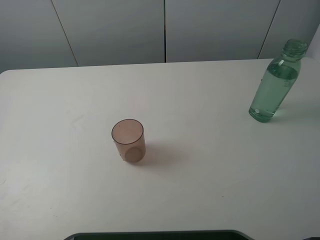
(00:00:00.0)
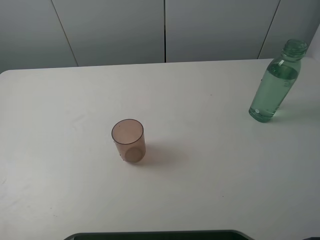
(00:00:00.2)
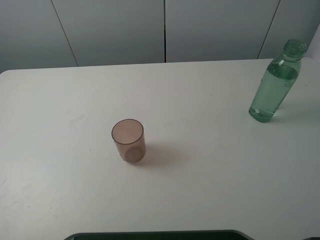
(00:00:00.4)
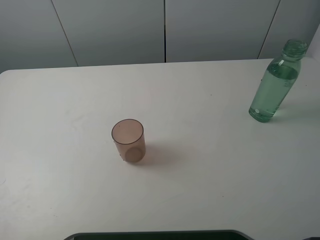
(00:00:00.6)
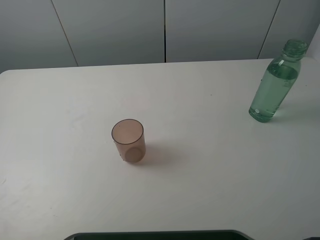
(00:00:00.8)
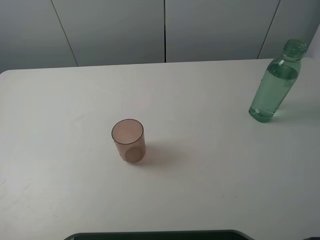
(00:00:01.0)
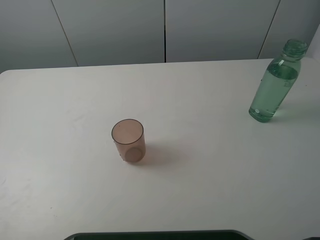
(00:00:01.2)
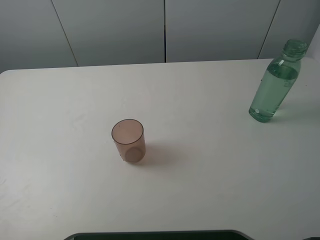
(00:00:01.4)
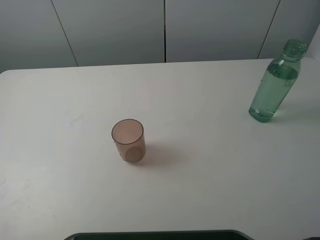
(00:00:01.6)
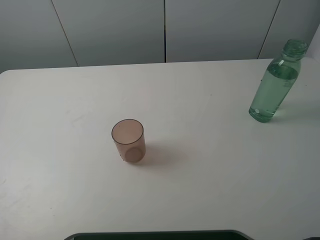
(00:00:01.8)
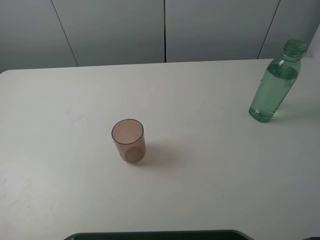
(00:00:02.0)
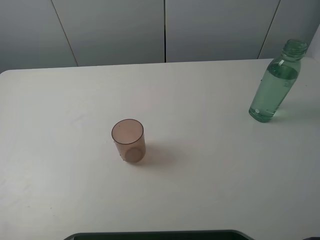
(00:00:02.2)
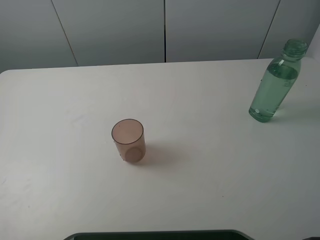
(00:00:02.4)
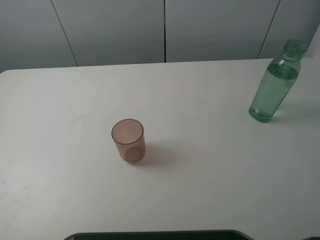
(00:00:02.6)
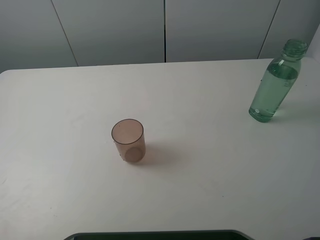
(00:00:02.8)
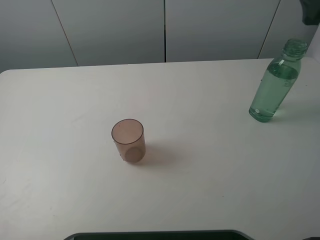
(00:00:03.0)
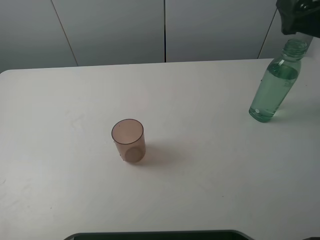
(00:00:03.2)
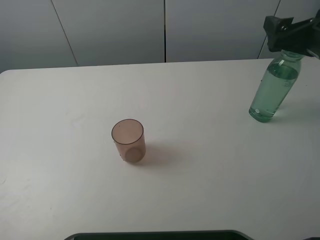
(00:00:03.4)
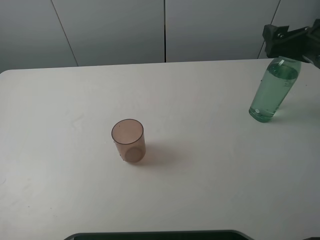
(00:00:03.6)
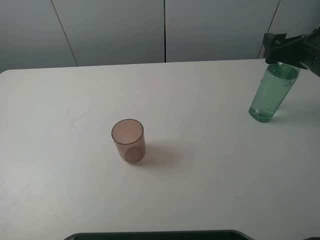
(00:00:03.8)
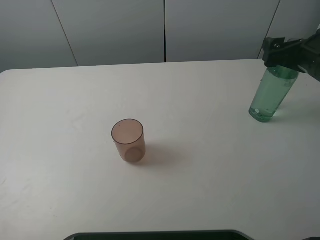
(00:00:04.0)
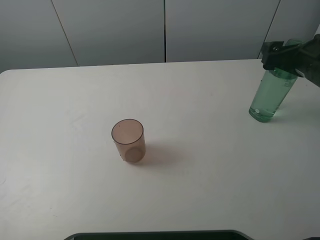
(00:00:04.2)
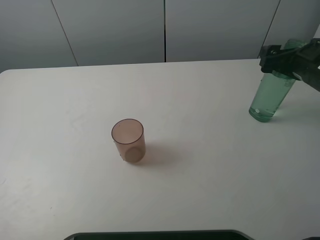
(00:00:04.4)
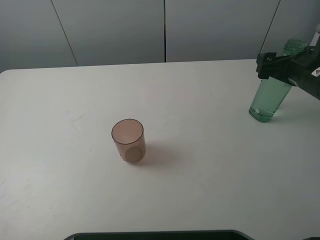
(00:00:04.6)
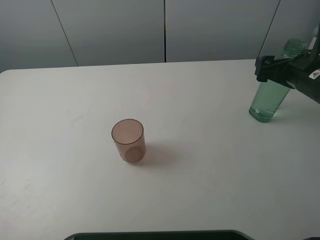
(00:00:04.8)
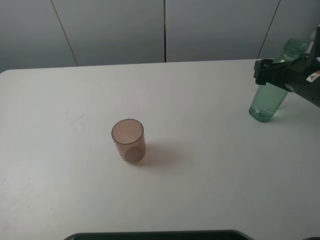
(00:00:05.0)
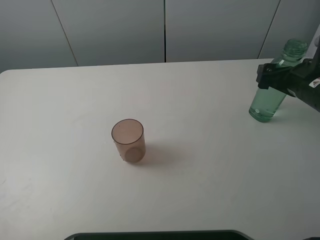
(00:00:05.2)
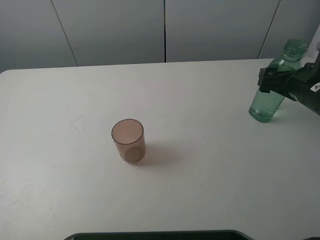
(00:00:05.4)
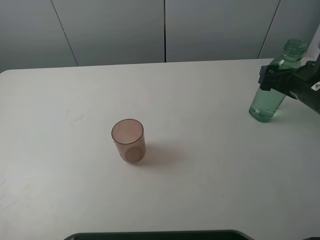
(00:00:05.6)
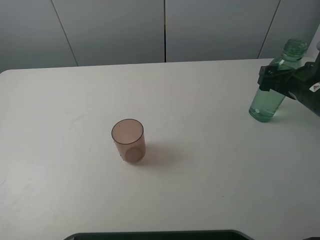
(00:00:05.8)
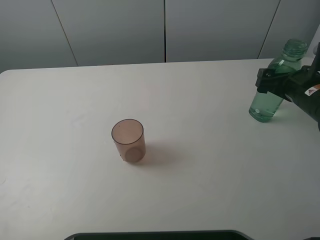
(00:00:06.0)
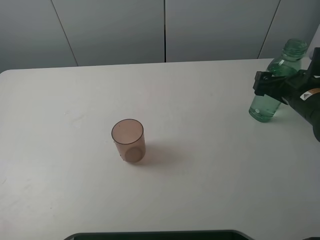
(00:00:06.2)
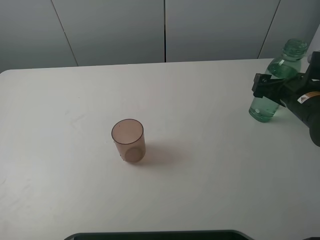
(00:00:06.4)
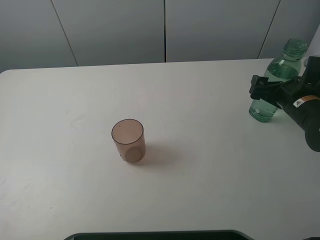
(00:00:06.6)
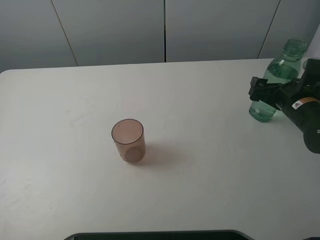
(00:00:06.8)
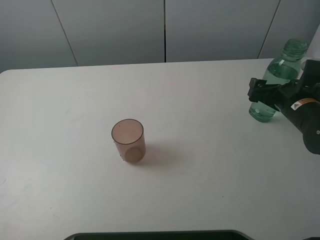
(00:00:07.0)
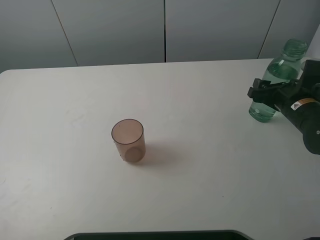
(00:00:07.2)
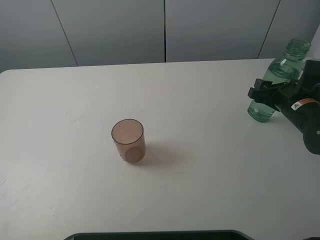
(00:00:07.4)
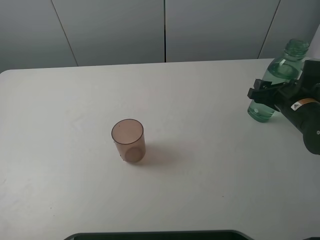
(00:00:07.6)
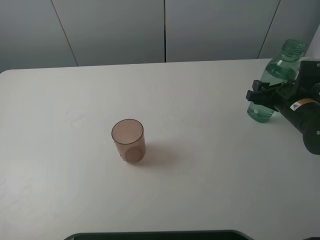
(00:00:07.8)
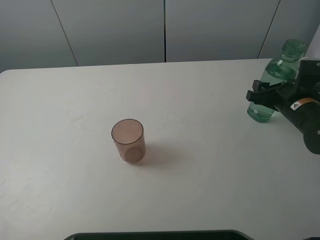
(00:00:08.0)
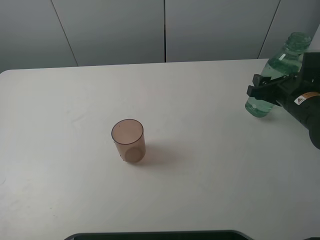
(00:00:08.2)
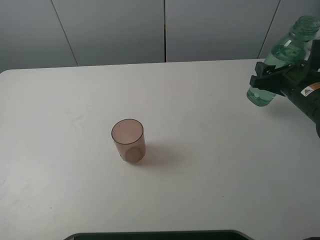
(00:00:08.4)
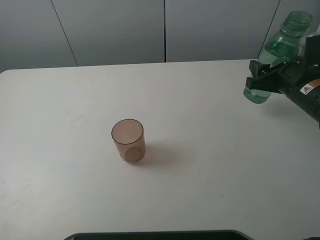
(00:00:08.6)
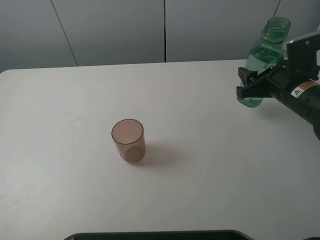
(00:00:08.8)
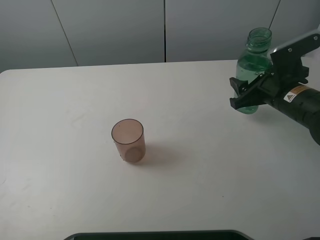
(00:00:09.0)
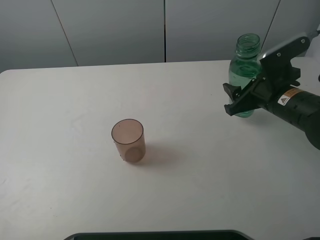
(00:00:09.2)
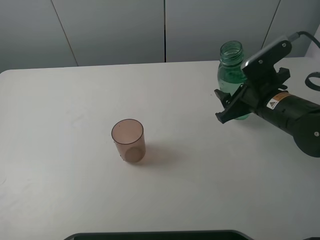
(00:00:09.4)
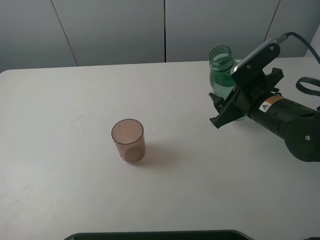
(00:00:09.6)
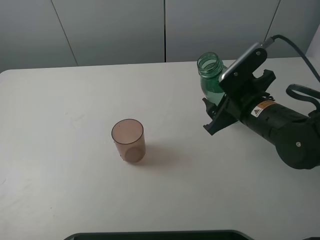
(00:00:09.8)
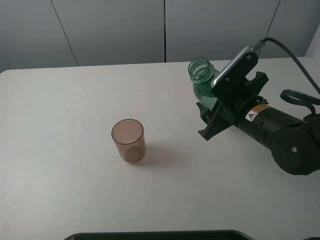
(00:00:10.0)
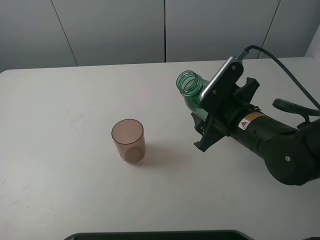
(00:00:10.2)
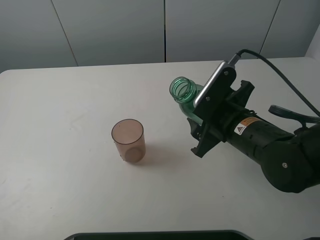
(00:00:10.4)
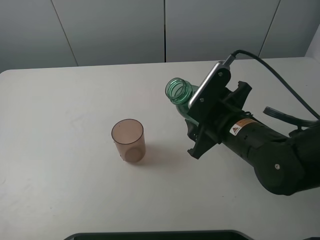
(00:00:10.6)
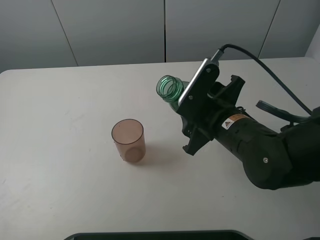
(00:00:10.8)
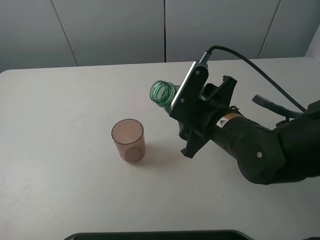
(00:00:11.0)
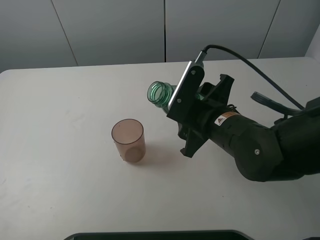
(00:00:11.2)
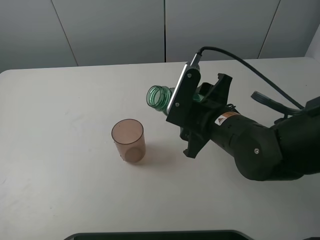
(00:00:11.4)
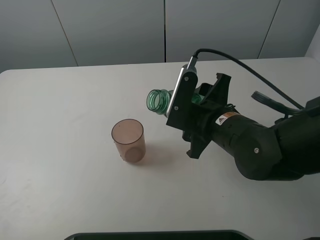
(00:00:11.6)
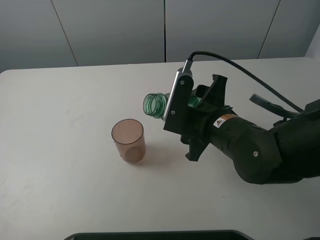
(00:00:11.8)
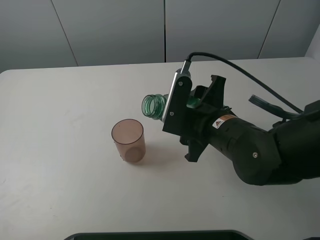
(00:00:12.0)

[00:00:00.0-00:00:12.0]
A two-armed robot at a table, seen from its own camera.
Task of the whole recording: pick up the bottle filled with water and pour it into the pink cup.
Step, 00:00:00.0 to 00:00:07.8: Grasp the green bottle with the right gripper.
00:00:00.0 to 00:00:01.6: Neither gripper changes place.
00:00:03.0 to 00:00:04.4: The right gripper shifts about 10 cm downward and forward.
00:00:04.4 to 00:00:06.0: The grippers make only small movements.
00:00:06.0 to 00:00:07.6: The right gripper closes up.
00:00:07.6 to 00:00:09.0: The right gripper moves some 5 cm.
00:00:09.0 to 00:00:10.4: The right gripper shifts roughly 10 cm to the left and backward.

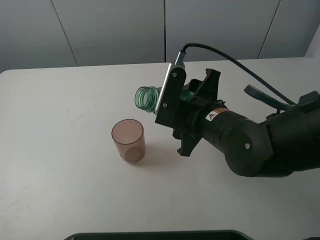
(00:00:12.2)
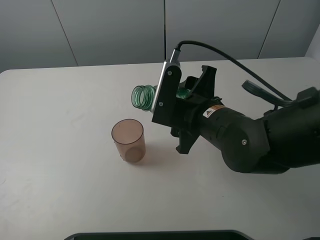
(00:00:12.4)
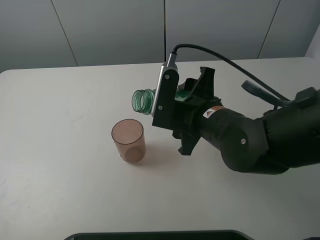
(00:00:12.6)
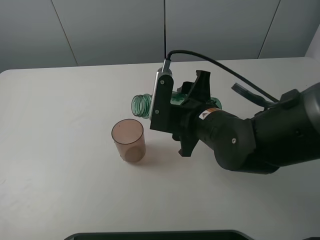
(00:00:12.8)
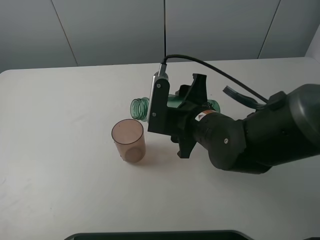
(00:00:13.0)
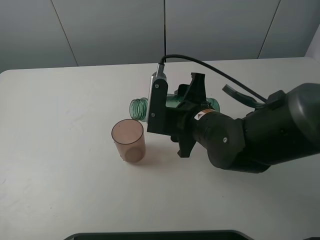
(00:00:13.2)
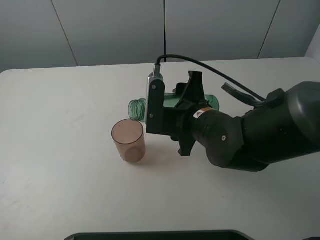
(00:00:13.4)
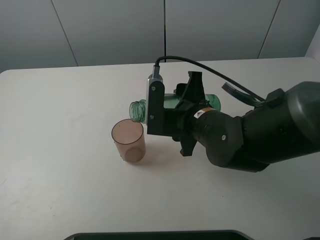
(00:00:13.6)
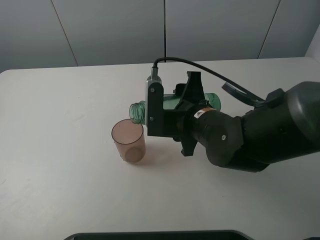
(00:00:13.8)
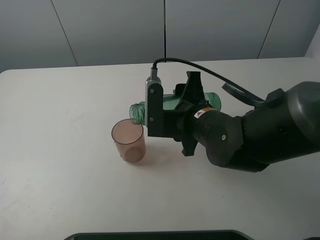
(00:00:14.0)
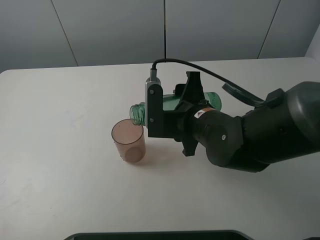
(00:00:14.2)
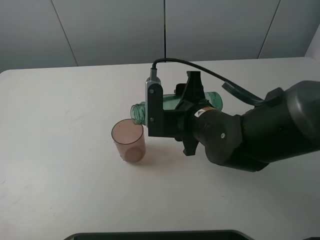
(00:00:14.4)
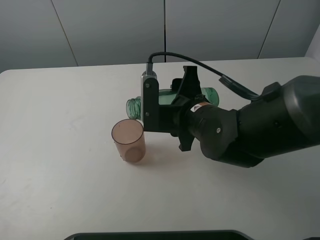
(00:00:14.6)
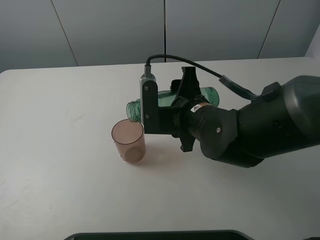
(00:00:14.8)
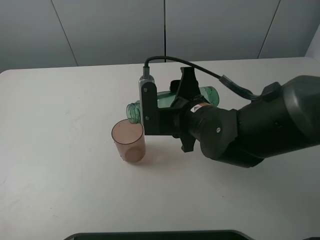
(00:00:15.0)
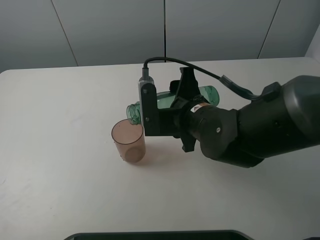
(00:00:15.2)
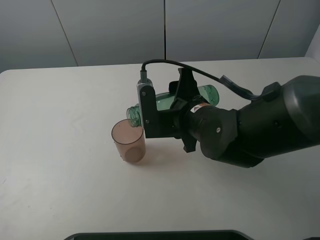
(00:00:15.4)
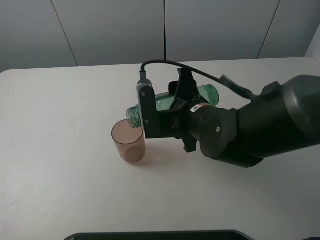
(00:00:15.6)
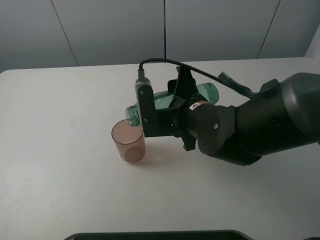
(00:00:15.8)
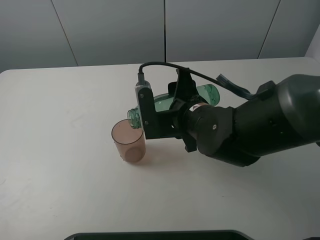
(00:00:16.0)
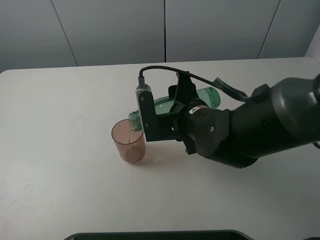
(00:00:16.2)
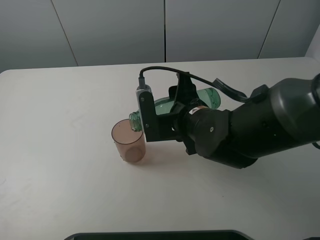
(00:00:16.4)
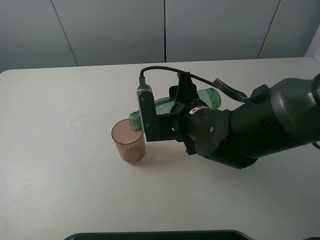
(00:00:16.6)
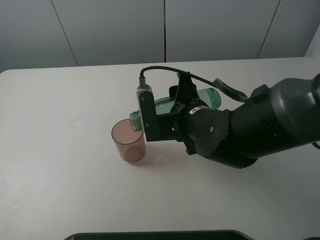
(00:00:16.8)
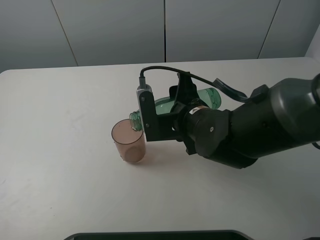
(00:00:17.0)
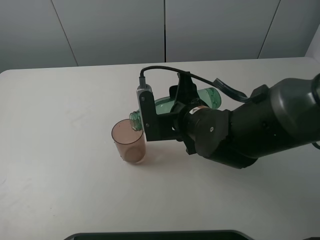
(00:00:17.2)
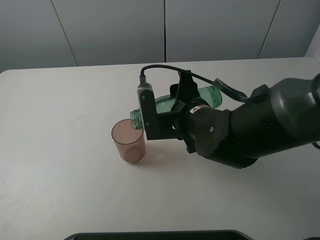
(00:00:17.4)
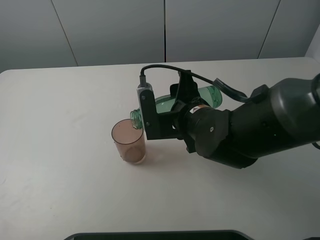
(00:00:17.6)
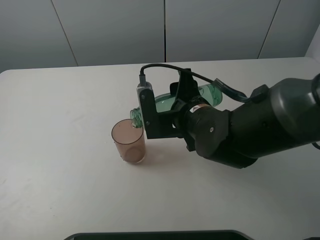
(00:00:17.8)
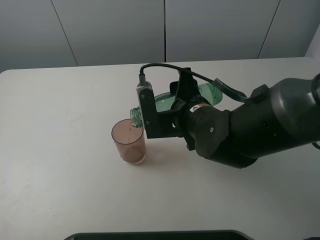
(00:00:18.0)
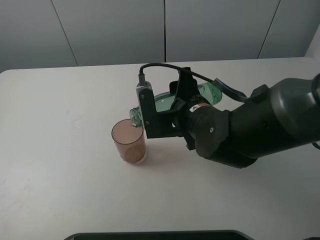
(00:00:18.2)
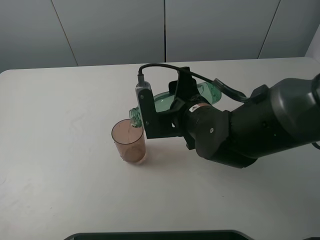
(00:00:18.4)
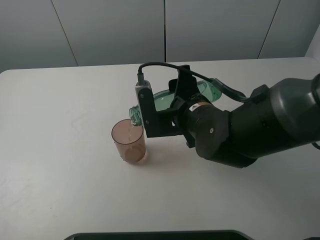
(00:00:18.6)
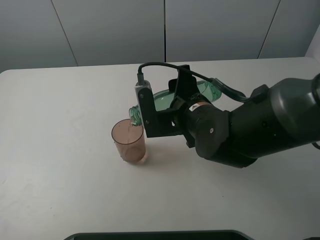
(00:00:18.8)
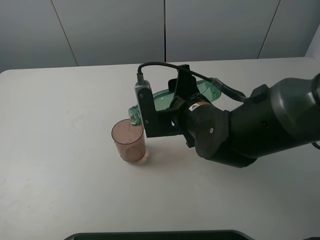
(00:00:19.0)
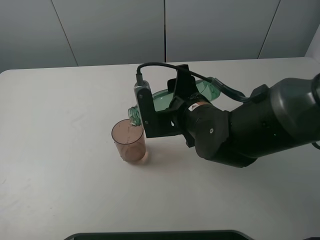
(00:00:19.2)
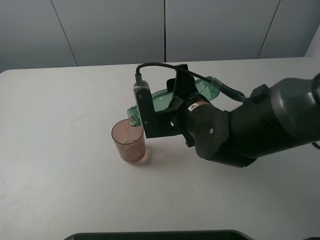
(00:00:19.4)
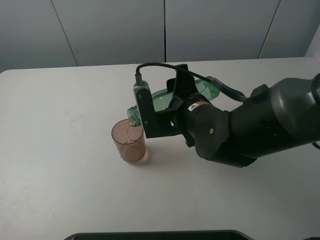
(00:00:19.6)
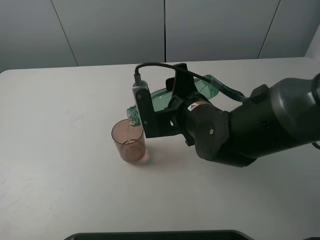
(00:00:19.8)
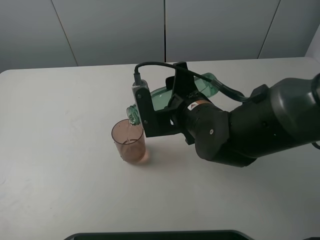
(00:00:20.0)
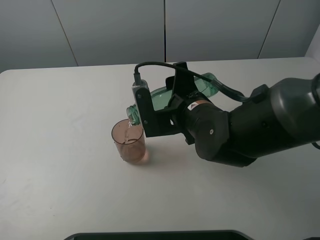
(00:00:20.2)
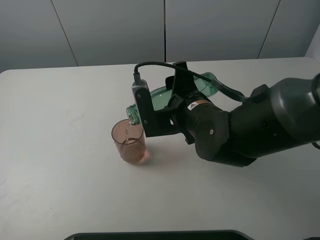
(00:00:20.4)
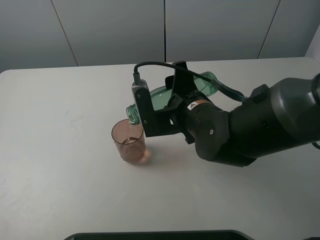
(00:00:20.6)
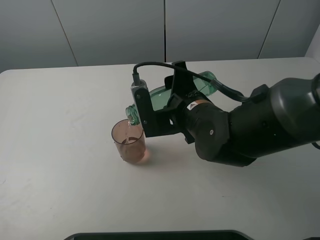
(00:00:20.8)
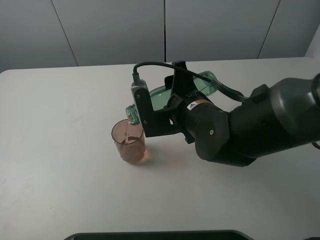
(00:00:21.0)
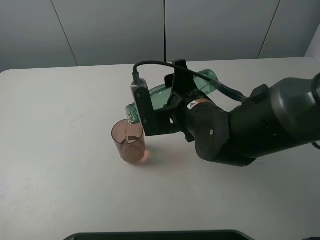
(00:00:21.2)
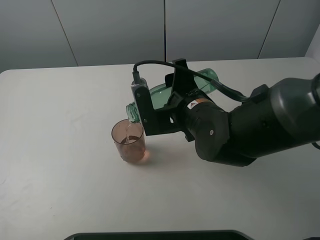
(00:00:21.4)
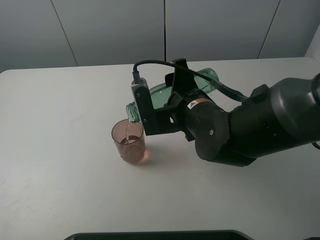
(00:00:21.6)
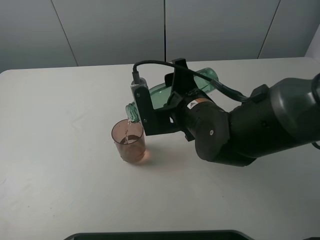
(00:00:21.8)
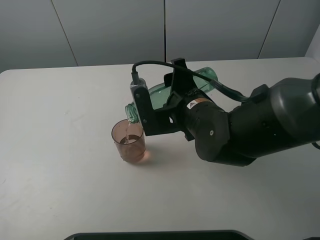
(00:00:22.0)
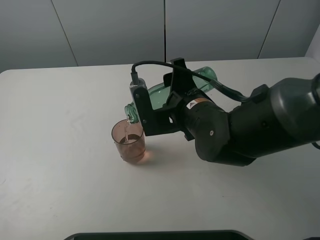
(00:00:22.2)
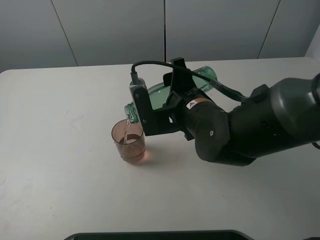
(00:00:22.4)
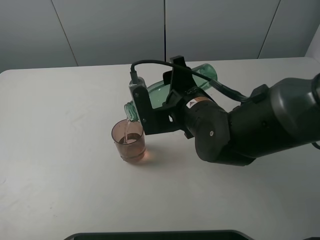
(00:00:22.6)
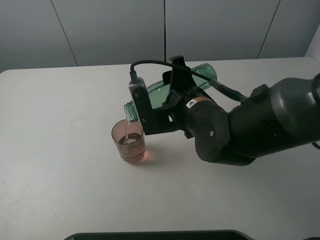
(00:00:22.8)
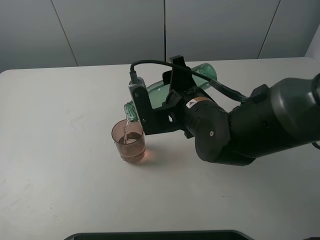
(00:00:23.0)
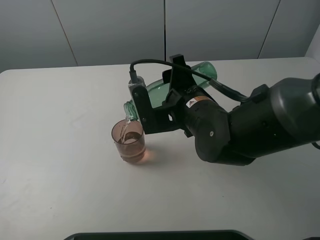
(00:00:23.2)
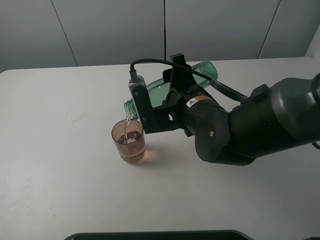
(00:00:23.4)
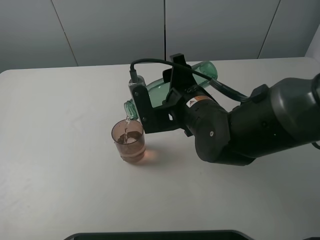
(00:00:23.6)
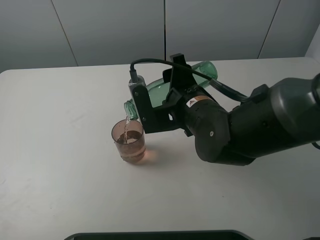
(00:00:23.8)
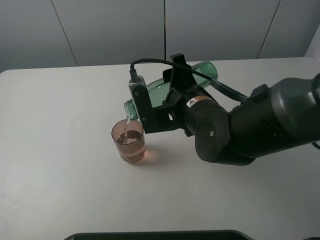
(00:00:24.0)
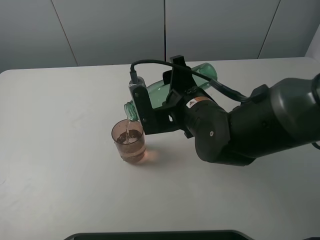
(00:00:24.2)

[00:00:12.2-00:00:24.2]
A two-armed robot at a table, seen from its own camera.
Task of the whole recording: pick up the bottle filled with water and pour it into the pink cup.
00:00:12.2 to 00:00:13.8: The grippers move only a little.
00:00:13.8 to 00:00:16.6: The grippers stay close to where they were, moving slightly.
00:00:16.6 to 00:00:18.2: The two grippers keep their place.
00:00:18.2 to 00:00:19.8: Both grippers stay about where they are.
00:00:19.8 to 00:00:21.2: Both grippers stay about where they are.
00:00:21.2 to 00:00:24.2: Both grippers stay put.
